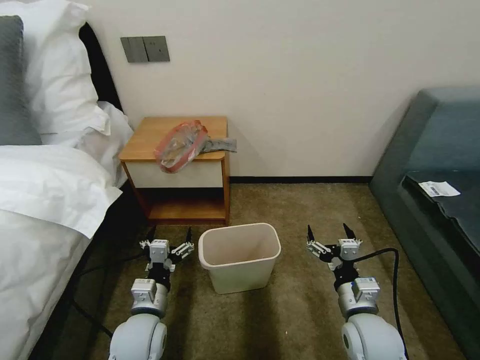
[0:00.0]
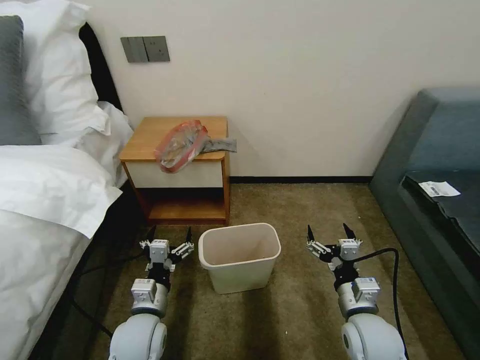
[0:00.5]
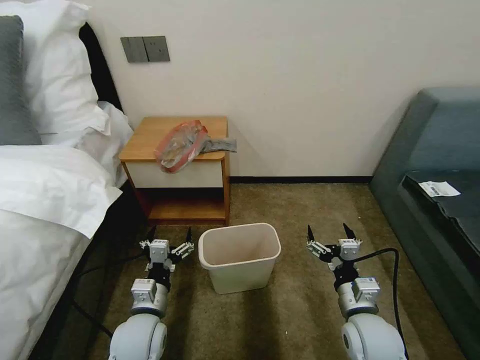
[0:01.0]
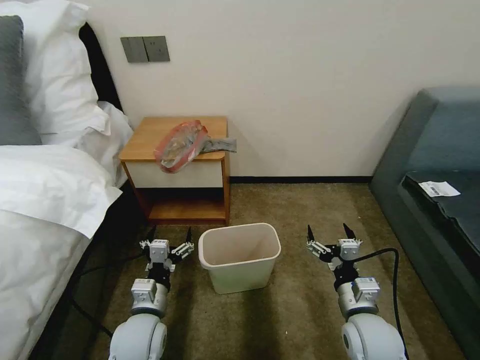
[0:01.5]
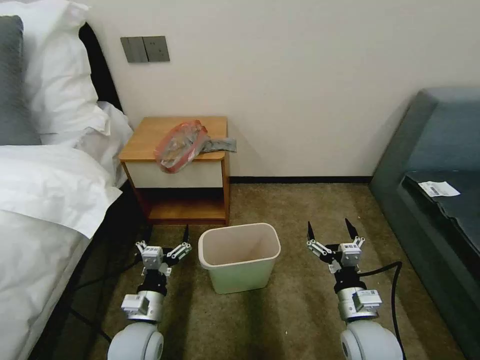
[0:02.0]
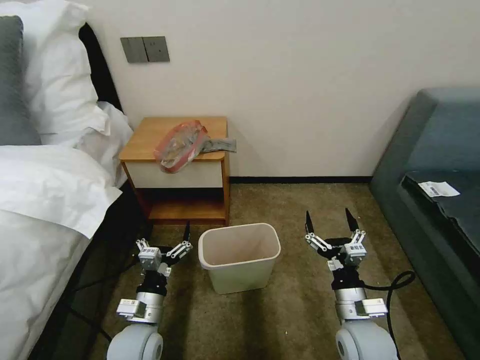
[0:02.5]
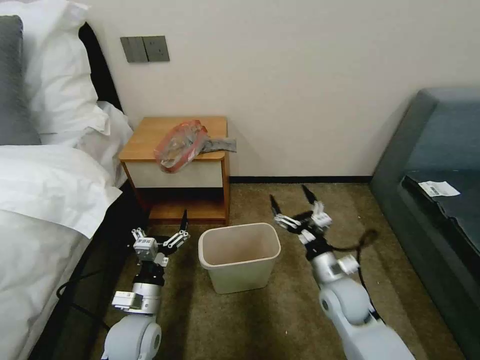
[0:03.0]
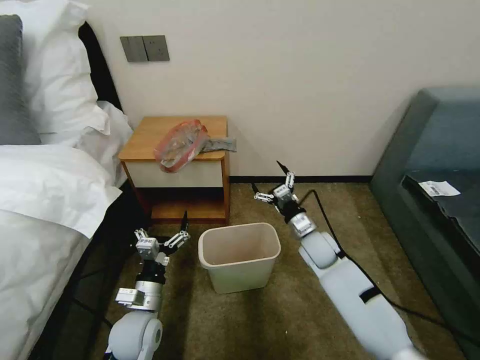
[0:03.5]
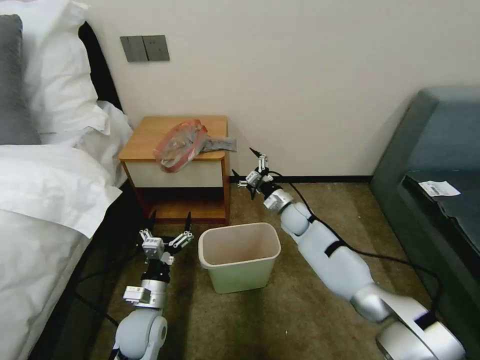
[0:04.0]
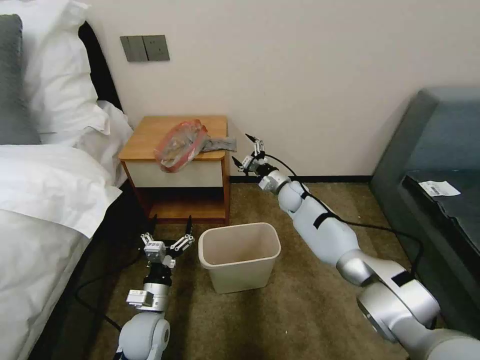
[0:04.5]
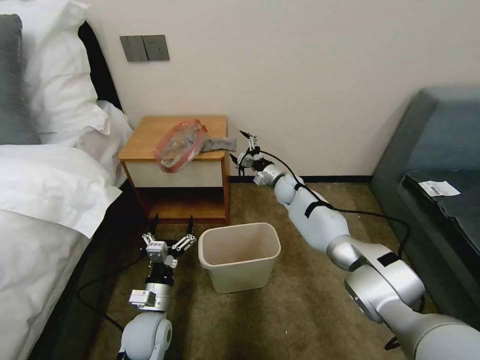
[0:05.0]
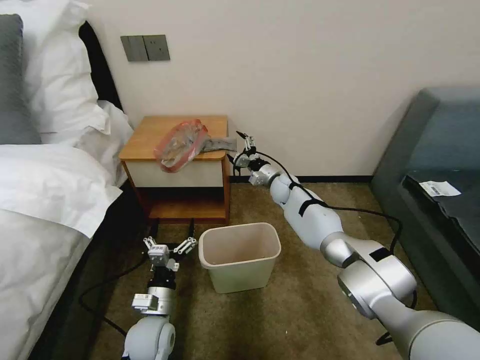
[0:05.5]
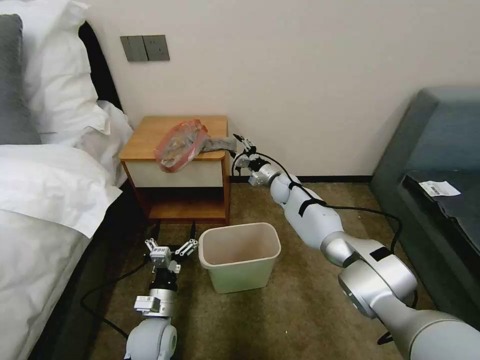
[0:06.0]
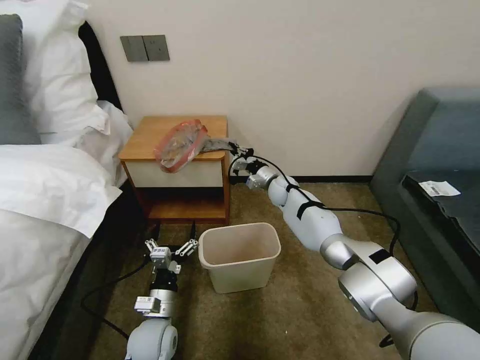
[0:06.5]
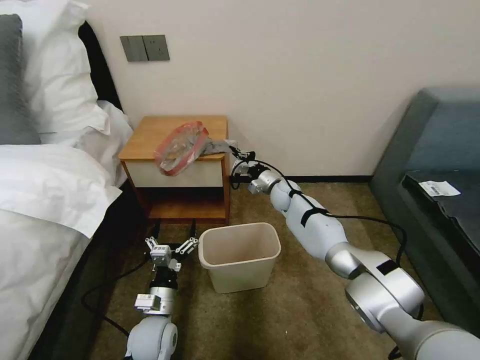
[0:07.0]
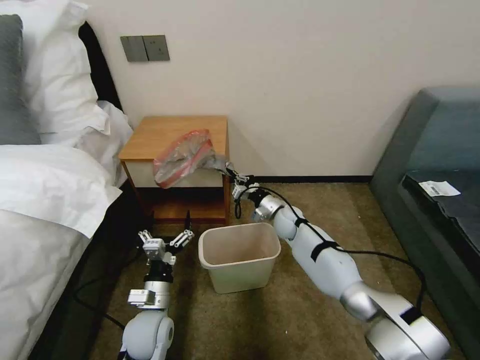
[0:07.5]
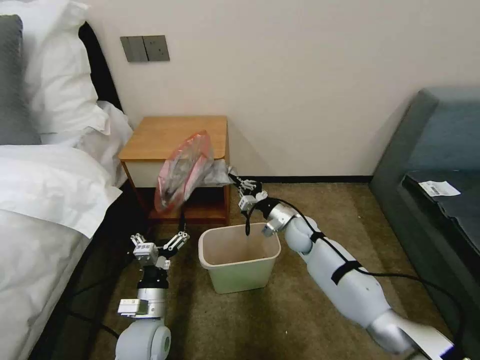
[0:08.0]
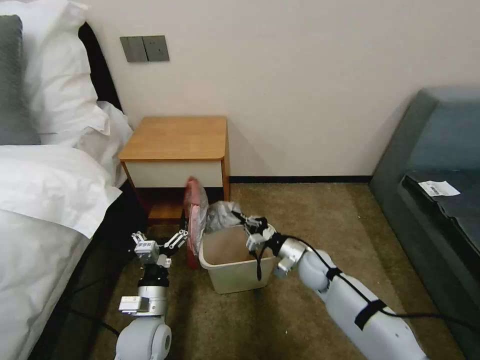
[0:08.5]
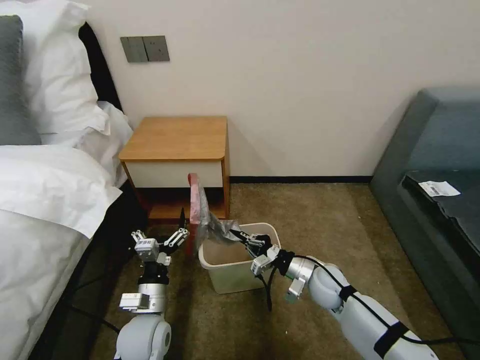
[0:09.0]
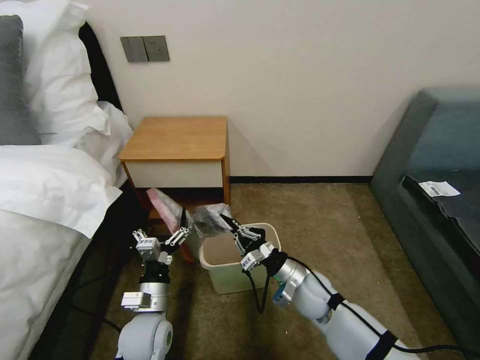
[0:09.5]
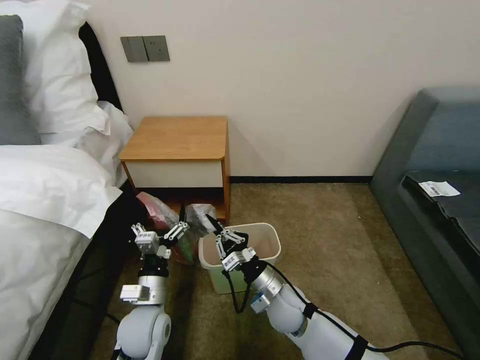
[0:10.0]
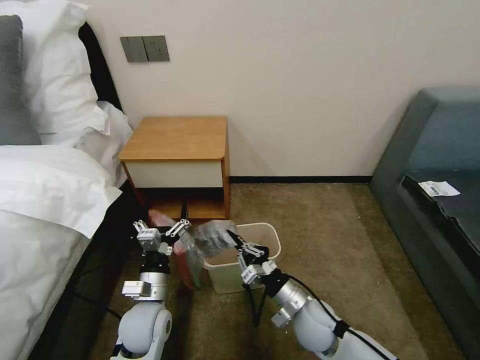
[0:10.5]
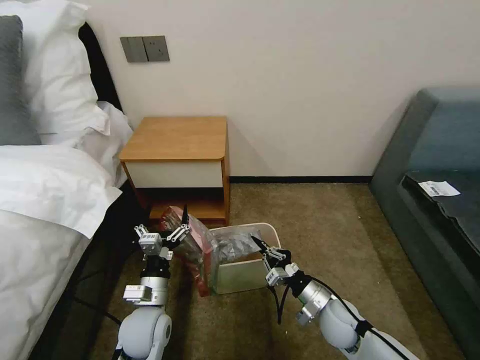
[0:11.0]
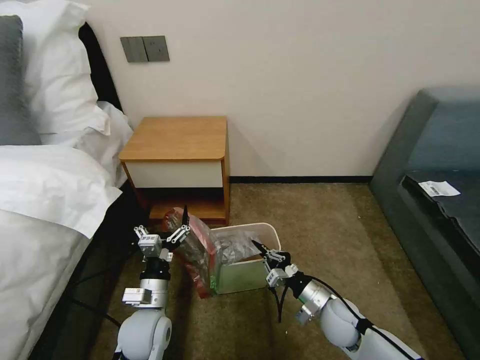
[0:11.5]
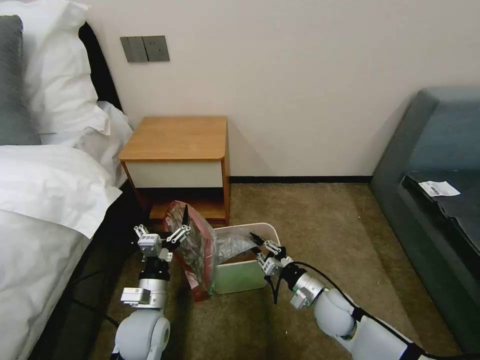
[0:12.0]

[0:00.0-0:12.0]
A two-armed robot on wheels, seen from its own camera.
Task of the whole recording: Pick up the garbage bag from the table and place it over the trash can.
0:02.0 to 0:04.0: The right gripper goes approximately 30 cm forward.
0:04.0 to 0:06.0: The right gripper travels forward by about 10 cm.
0:06.0 to 0:08.0: The right gripper moves backward, some 15 cm, and closes its fingers.
0:08.0 to 0:10.0: The right gripper goes approximately 20 cm backward.
0:10.0 to 0:12.0: The right gripper is displaced to the right by roughly 10 cm.

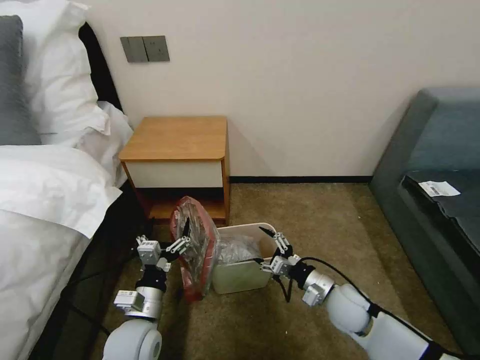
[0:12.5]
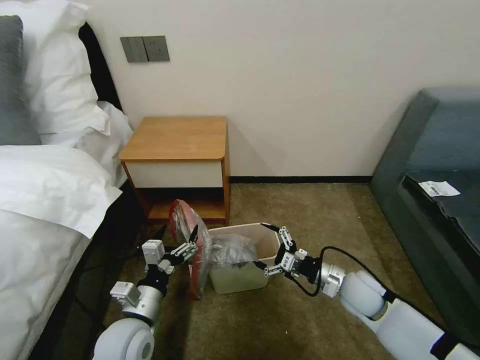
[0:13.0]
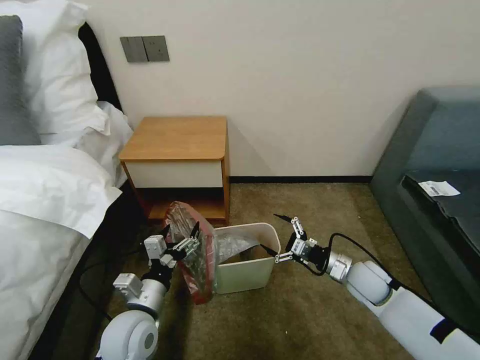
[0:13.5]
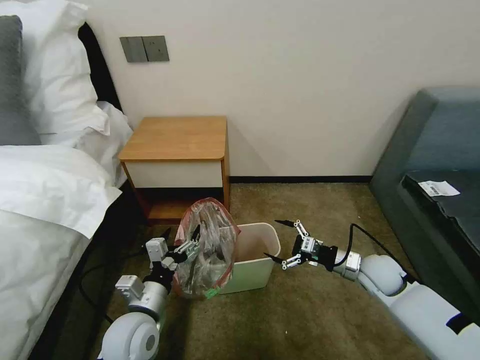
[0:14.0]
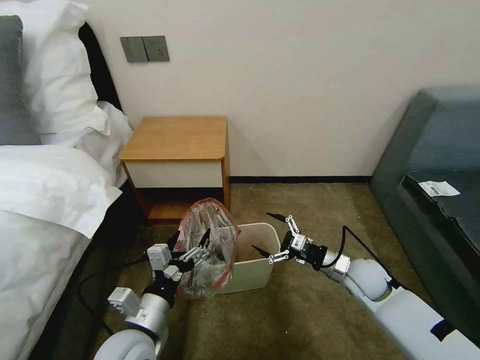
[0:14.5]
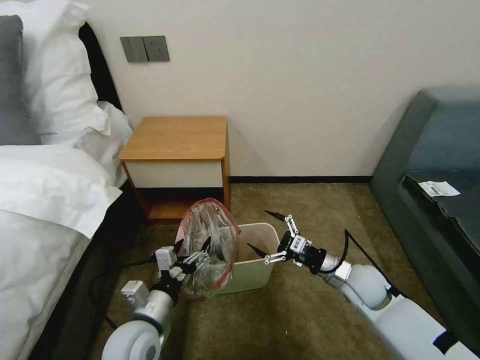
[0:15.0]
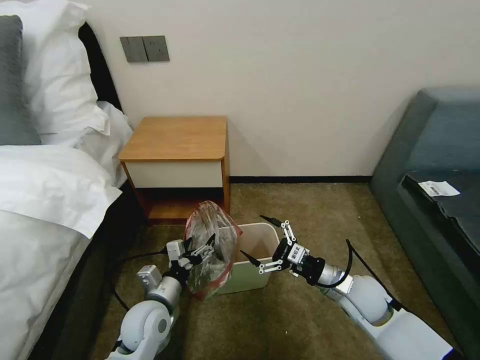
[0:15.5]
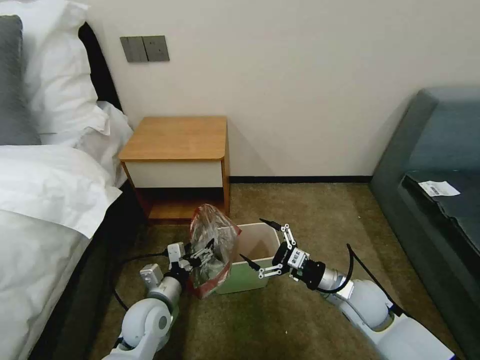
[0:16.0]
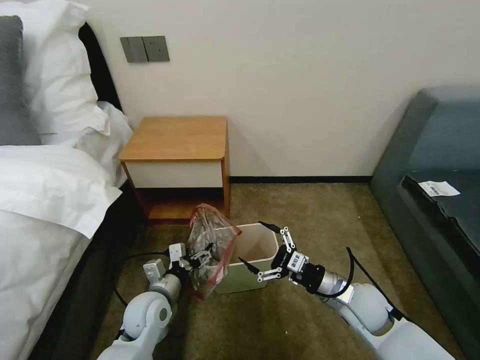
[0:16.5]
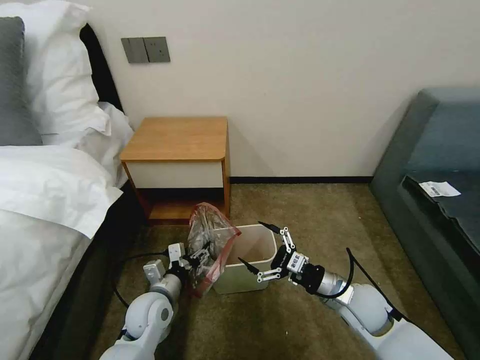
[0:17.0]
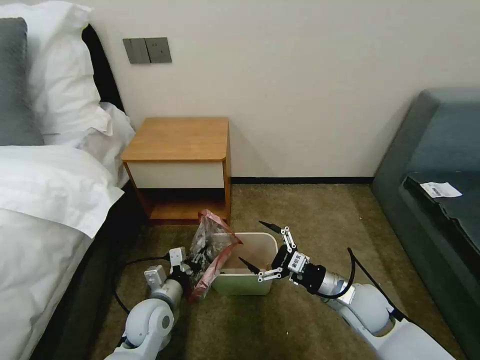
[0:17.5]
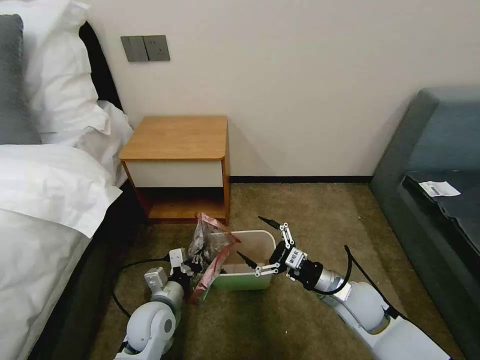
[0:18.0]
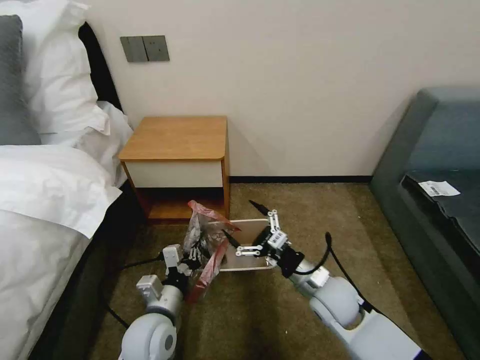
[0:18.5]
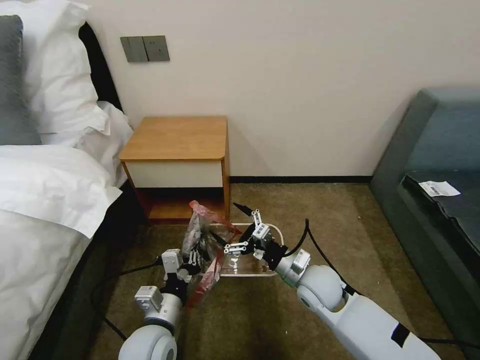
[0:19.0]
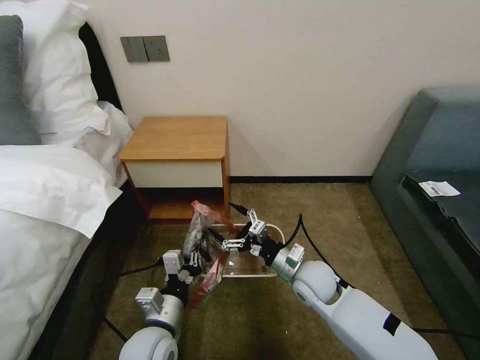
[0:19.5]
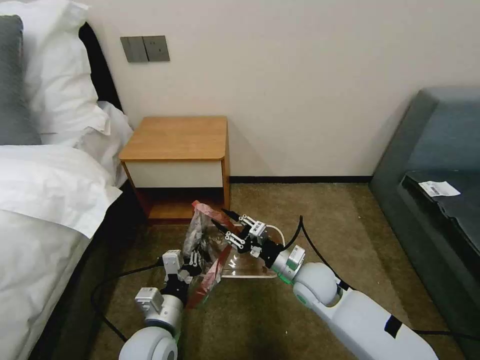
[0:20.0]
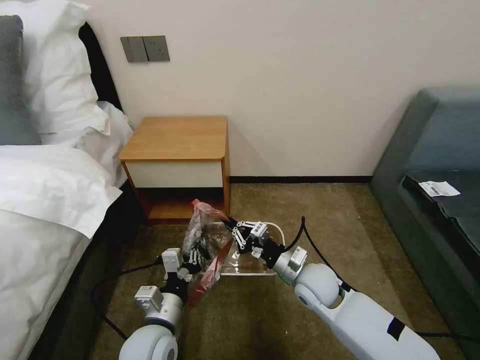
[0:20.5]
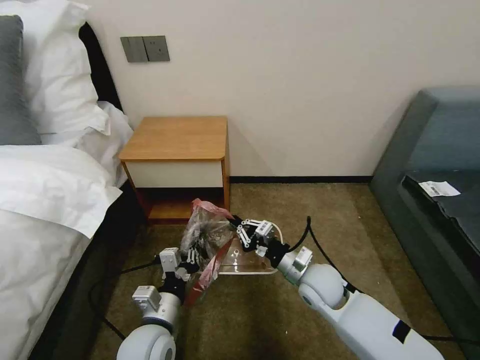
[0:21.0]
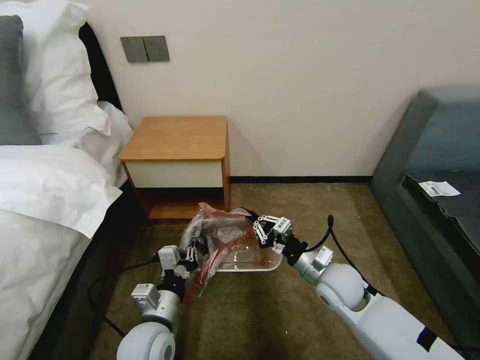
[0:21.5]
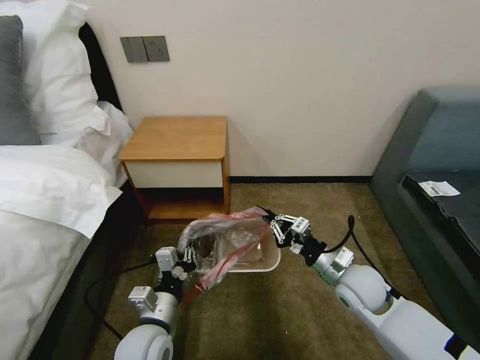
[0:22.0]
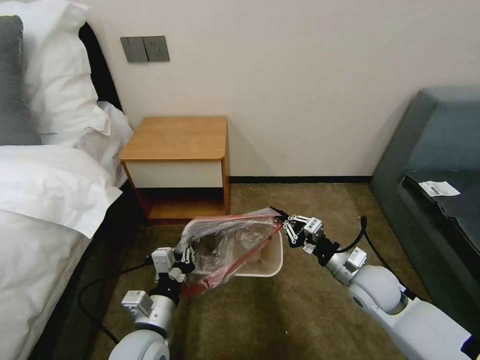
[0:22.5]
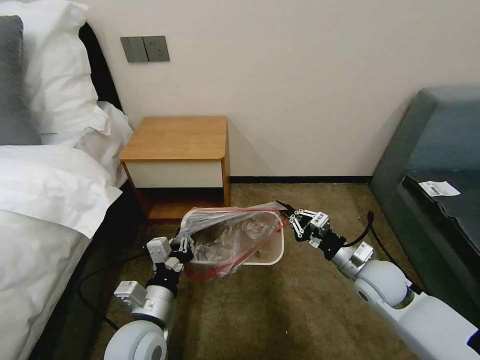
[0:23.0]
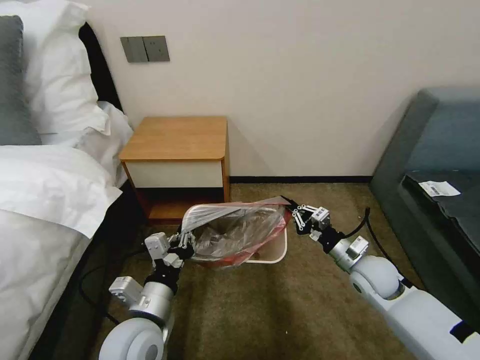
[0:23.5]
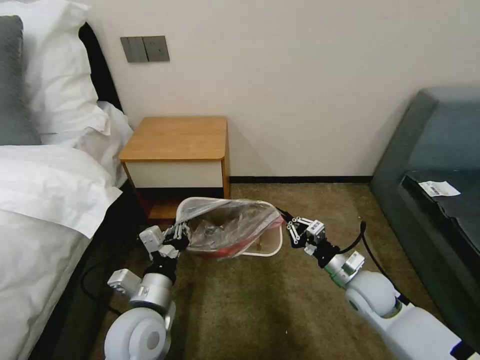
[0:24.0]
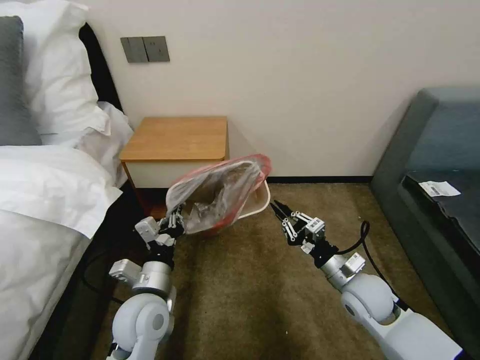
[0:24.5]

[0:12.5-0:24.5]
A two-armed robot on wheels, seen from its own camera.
Task of the whole recording: Pick up the garbage bag from the table and place it over the trash can.
0:12.5 to 0:14.5: The left gripper is displaced upward by about 5 cm; the right gripper is displaced forward and to the right by about 10 cm.
0:14.5 to 0:16.5: The left gripper shifts some 15 cm forward and downward. The right gripper shifts about 5 cm backward.
0:16.5 to 0:18.5: The right gripper moves to the left, some 5 cm; the left gripper shifts about 5 cm backward, and closes up.
0:18.5 to 0:20.5: The right gripper closes its fingers.
0:20.5 to 0:22.5: The right gripper is displaced to the right by some 10 cm.
0:22.5 to 0:24.5: The left gripper goes roughly 5 cm forward.

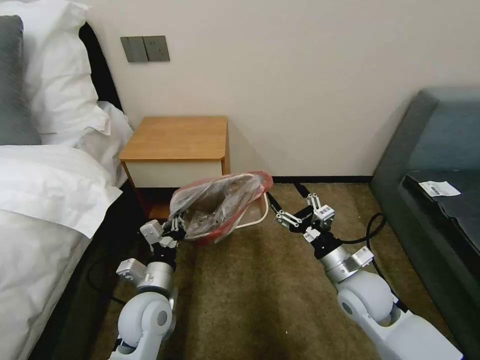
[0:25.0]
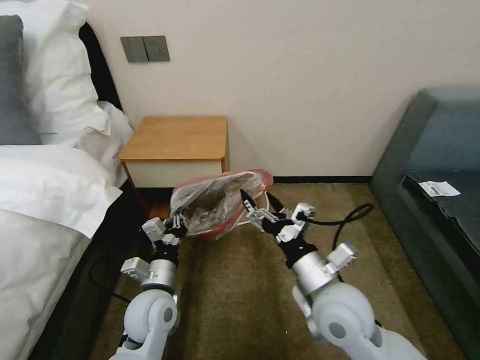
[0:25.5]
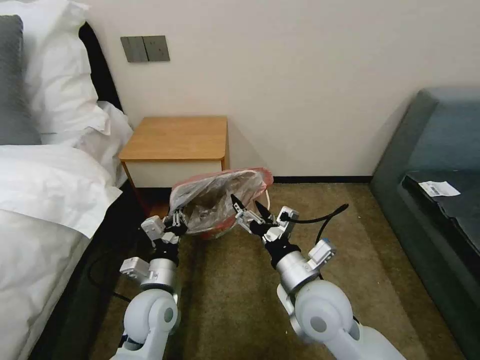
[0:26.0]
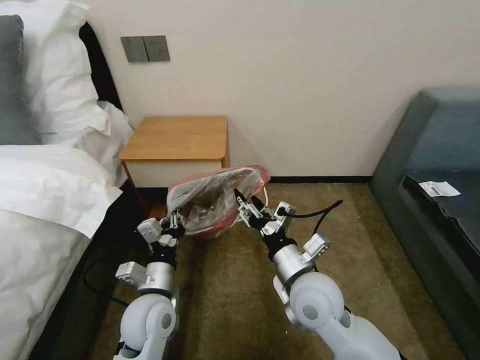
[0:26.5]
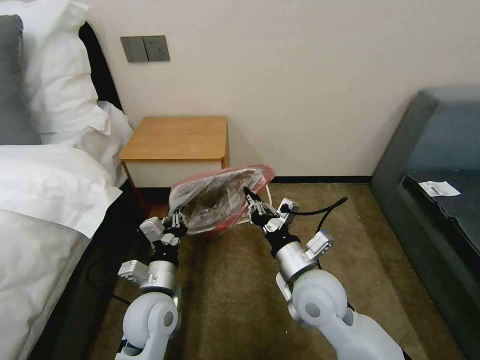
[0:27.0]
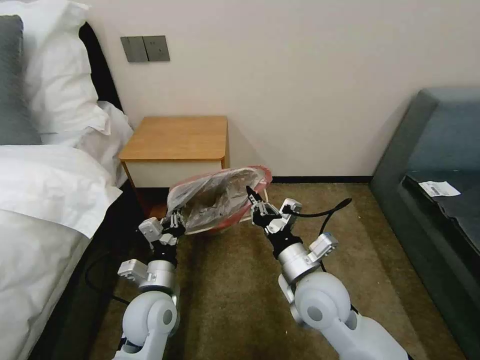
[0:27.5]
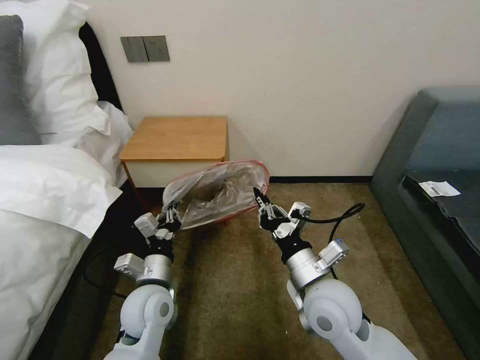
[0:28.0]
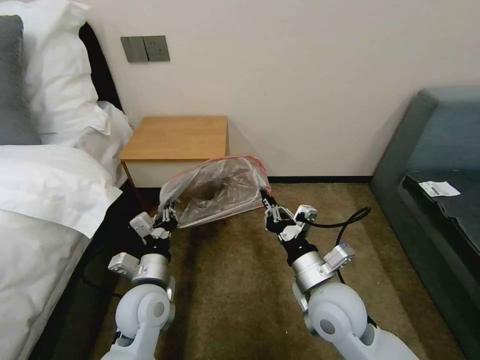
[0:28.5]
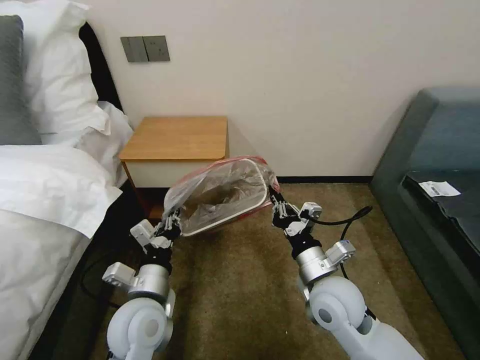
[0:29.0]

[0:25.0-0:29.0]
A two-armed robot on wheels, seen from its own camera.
Task of the whole recording: Pick up the garbage bag from the table and place it over the trash can.
0:25.0 to 0:27.0: The right gripper goes roughly 15 cm to the left and upward, and closes its fingers.
0:27.0 to 0:29.0: The grippers make only small movements.
